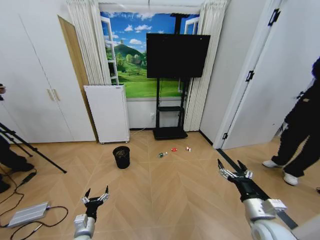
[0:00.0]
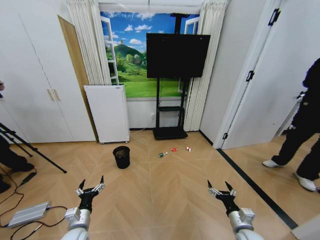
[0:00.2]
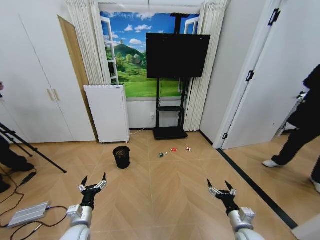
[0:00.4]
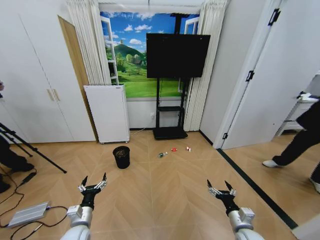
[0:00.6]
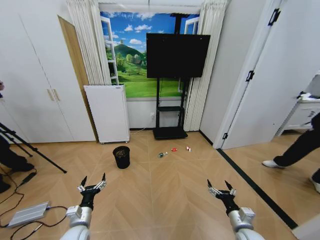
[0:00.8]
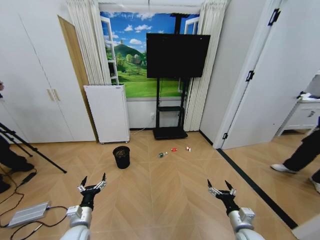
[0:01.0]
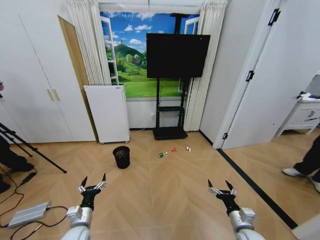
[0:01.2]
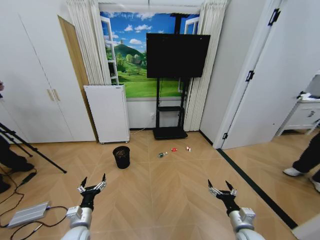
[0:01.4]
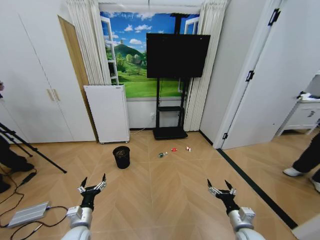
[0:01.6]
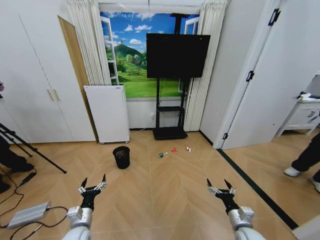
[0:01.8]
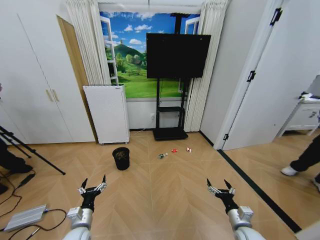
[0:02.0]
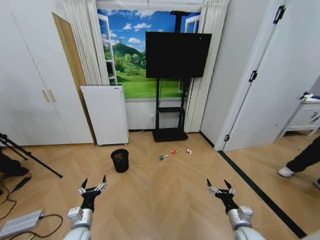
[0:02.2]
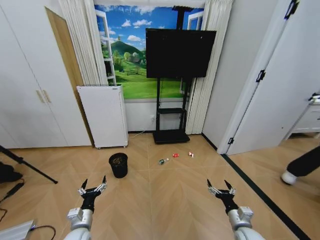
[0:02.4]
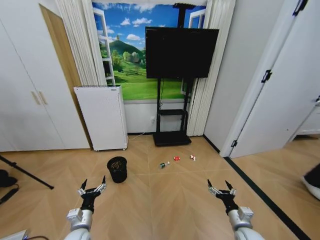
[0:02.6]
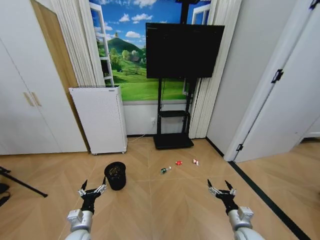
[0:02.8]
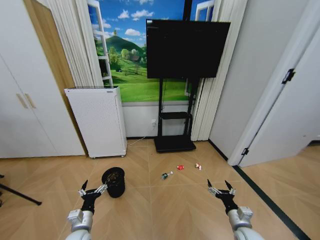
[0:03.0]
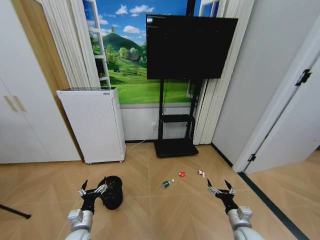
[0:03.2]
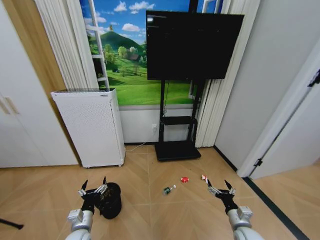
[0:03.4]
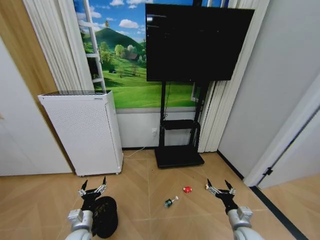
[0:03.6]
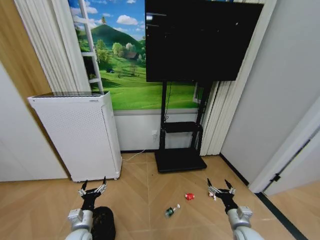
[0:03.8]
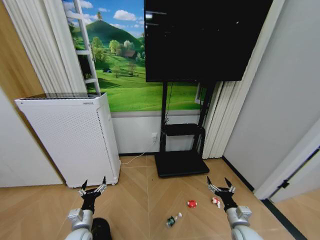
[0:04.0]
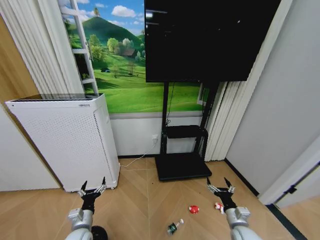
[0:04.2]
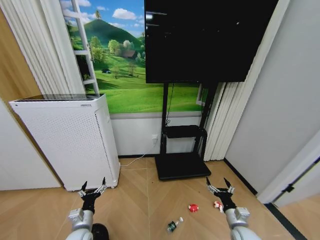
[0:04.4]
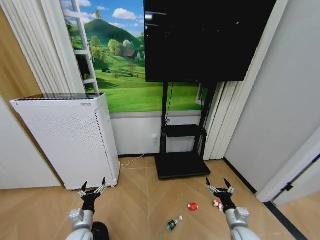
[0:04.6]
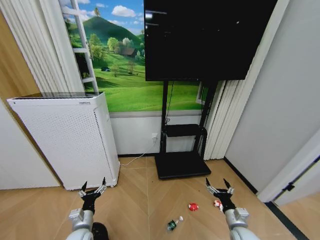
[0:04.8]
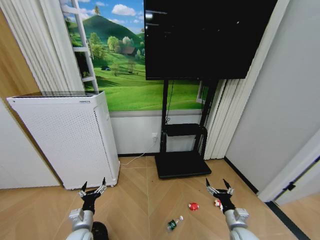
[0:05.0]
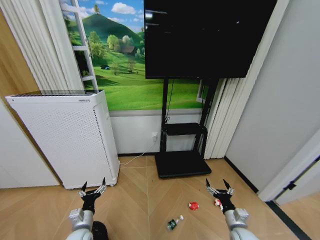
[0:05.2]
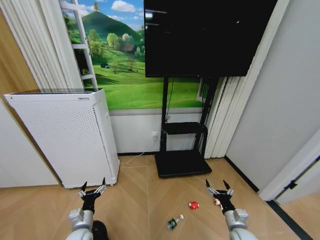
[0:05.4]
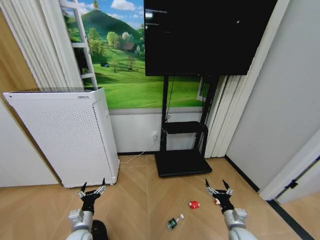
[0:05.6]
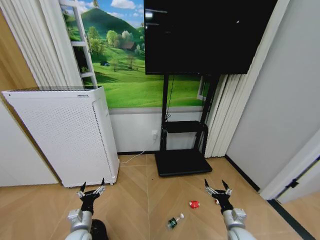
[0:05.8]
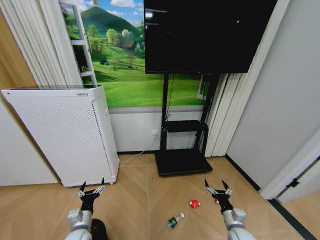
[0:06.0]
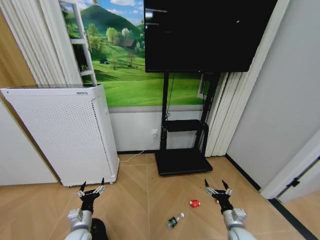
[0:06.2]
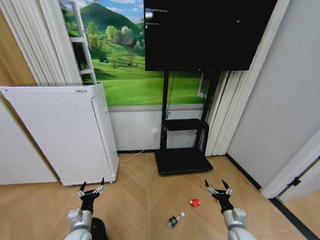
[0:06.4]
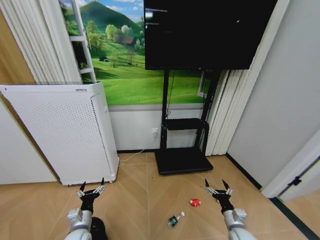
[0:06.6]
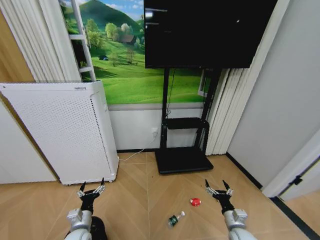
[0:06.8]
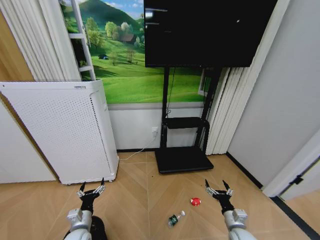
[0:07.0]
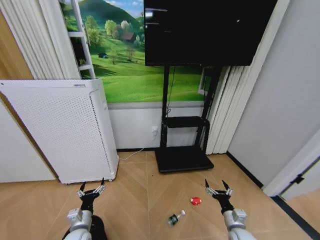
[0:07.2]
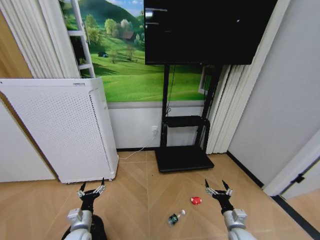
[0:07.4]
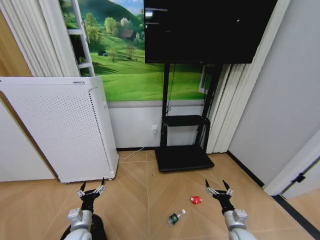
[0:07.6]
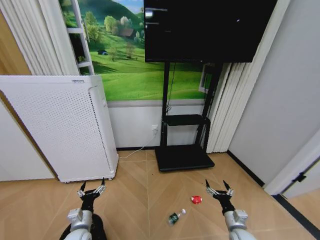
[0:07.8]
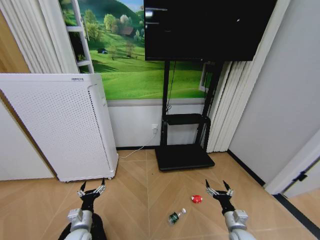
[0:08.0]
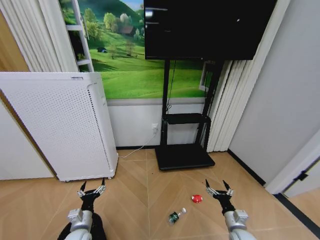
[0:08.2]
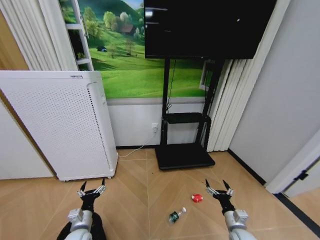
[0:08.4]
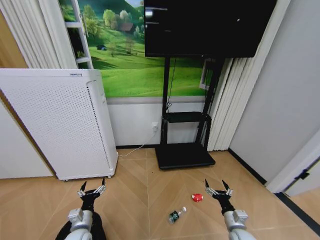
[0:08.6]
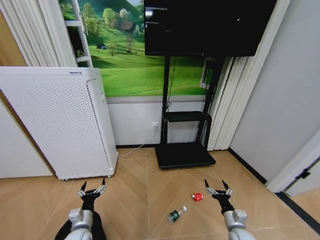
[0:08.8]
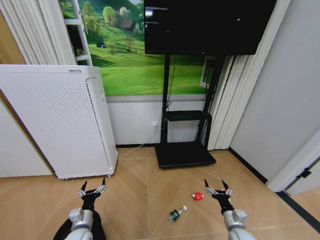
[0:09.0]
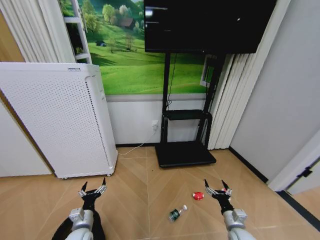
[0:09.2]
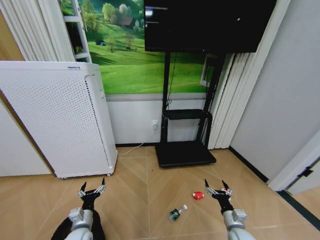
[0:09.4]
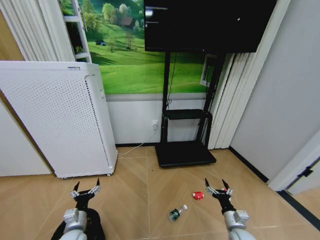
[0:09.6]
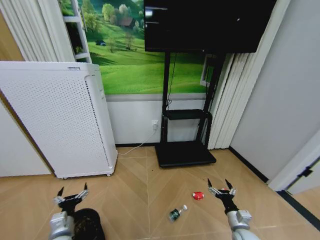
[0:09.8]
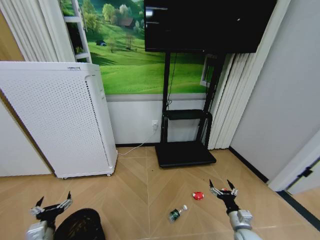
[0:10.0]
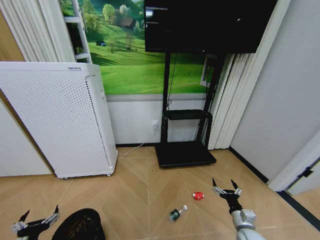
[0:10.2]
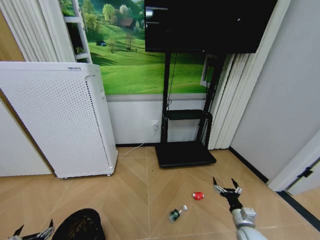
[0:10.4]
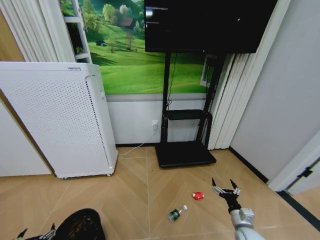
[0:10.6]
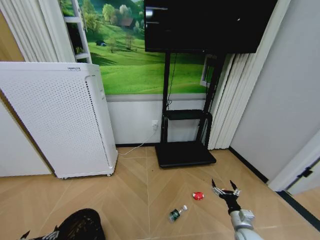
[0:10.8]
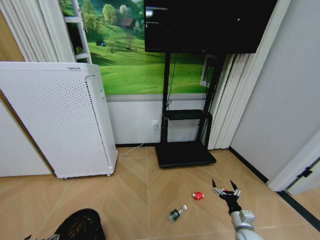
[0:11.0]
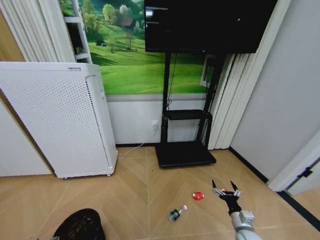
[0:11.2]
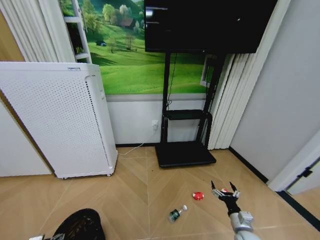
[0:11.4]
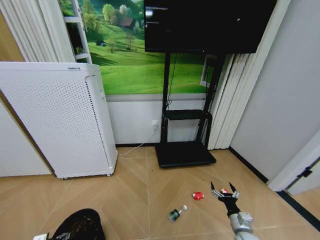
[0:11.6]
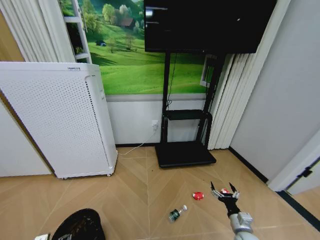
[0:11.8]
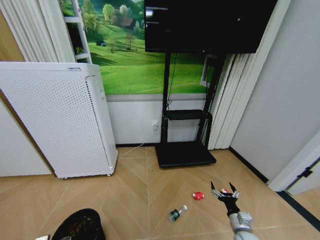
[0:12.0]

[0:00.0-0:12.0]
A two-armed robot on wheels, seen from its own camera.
Task of the whole recording: Pick up the trash bin and place the garbage on the floor into it.
0:04.4 to 0:06.0: The grippers stay close to where they were, moving slightly.
0:06.0 to 0:09.0: The two grippers keep their place.
0:09.0 to 0:10.4: The left gripper moves backward and to the left, some 15 cm.

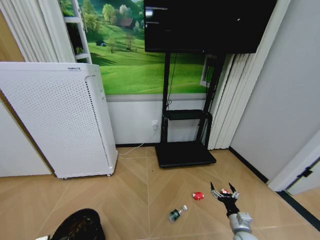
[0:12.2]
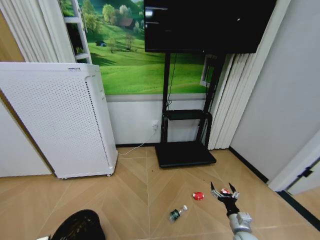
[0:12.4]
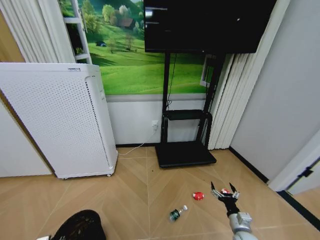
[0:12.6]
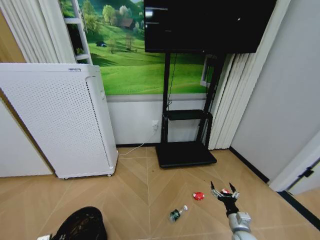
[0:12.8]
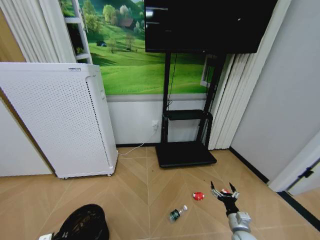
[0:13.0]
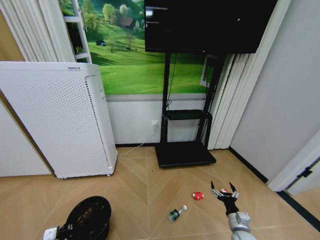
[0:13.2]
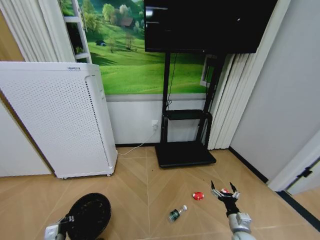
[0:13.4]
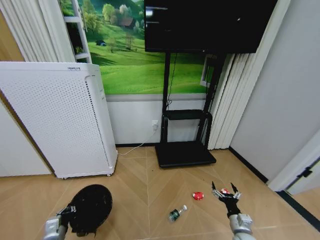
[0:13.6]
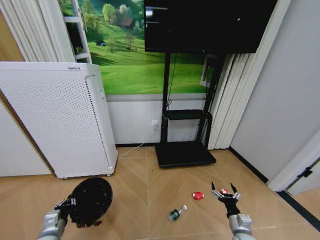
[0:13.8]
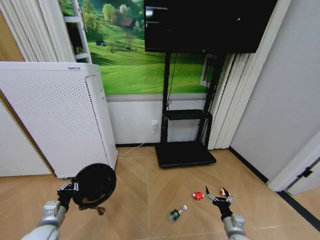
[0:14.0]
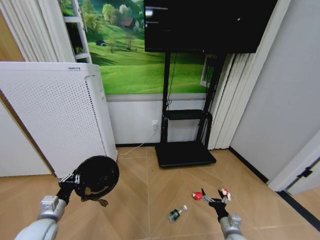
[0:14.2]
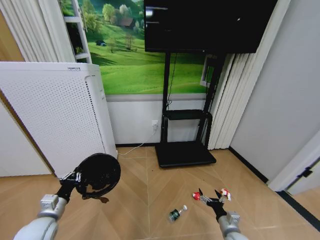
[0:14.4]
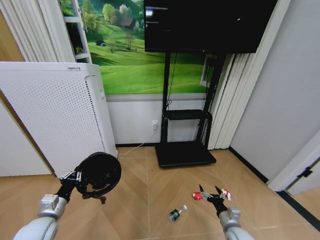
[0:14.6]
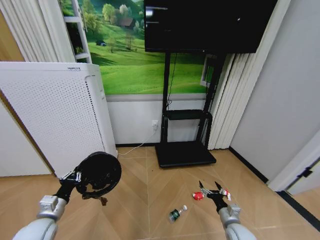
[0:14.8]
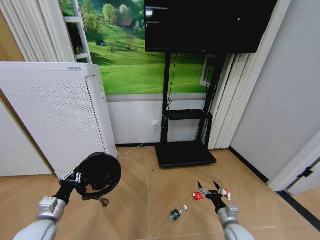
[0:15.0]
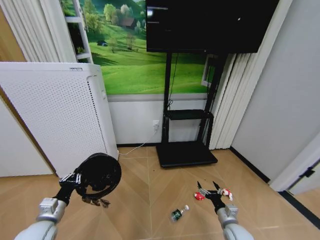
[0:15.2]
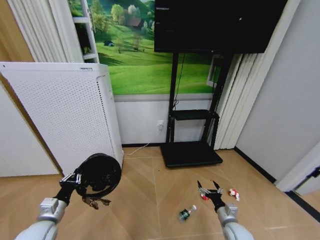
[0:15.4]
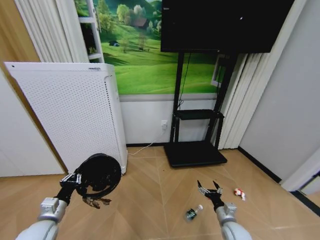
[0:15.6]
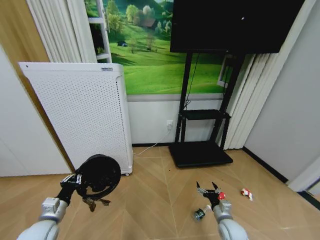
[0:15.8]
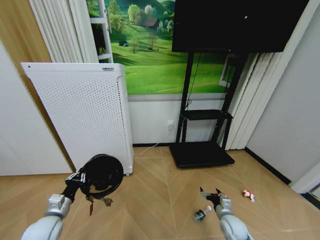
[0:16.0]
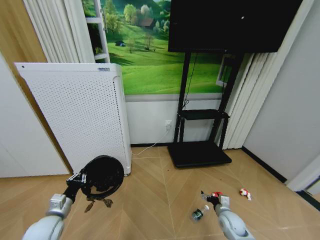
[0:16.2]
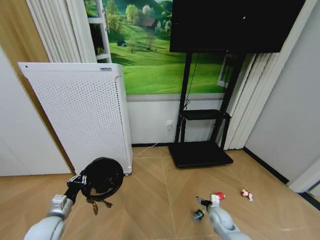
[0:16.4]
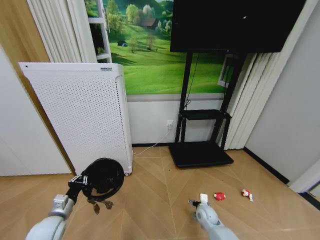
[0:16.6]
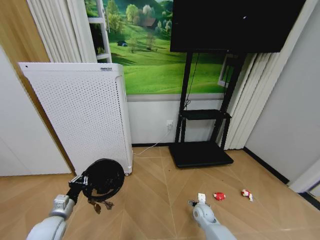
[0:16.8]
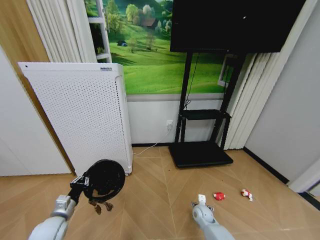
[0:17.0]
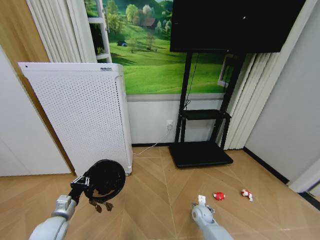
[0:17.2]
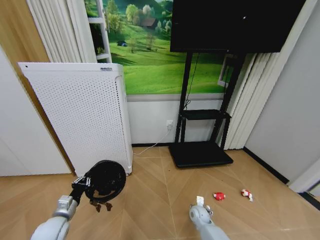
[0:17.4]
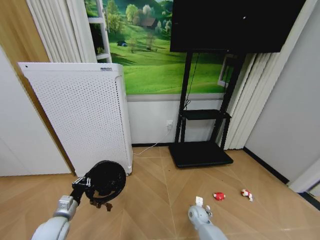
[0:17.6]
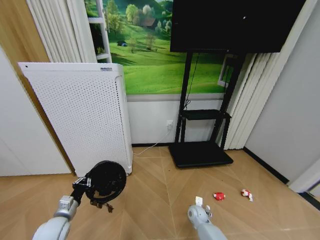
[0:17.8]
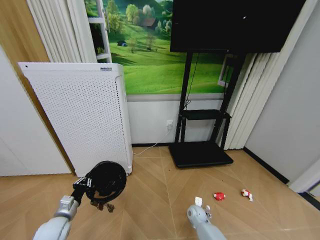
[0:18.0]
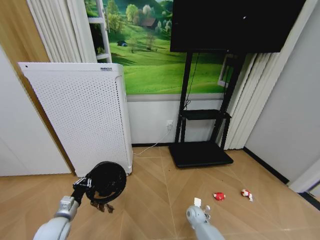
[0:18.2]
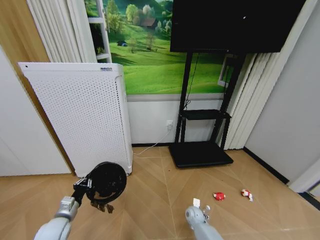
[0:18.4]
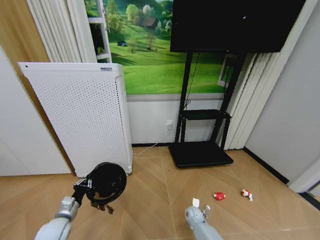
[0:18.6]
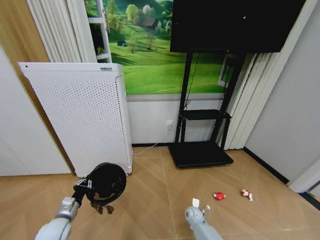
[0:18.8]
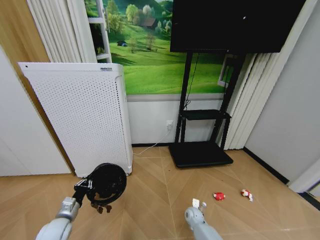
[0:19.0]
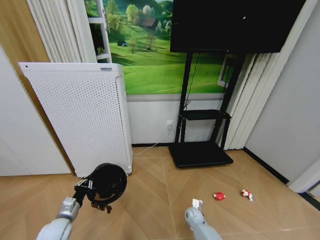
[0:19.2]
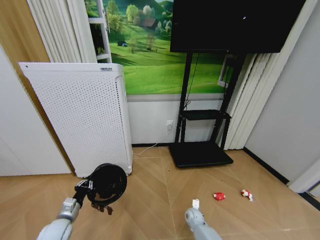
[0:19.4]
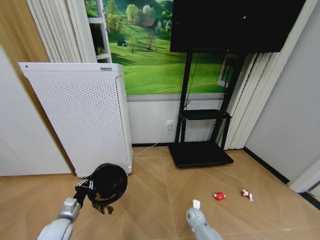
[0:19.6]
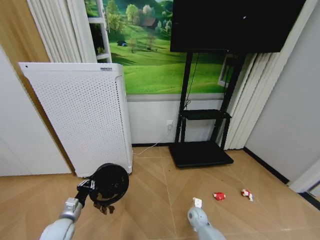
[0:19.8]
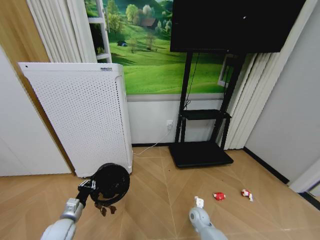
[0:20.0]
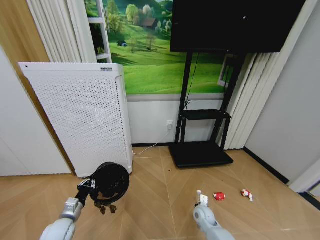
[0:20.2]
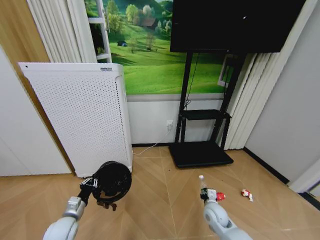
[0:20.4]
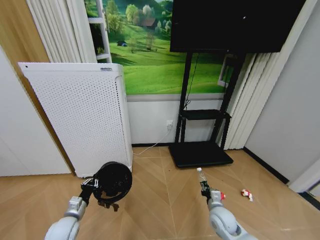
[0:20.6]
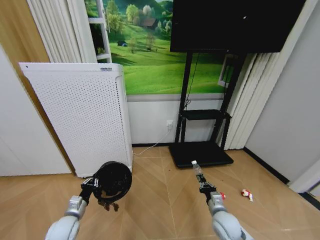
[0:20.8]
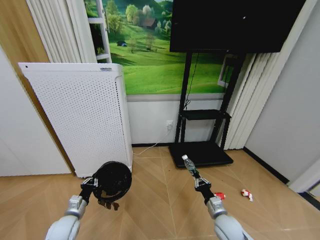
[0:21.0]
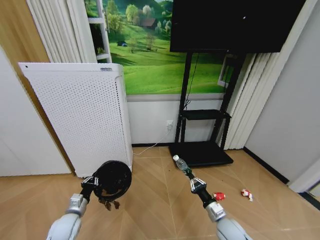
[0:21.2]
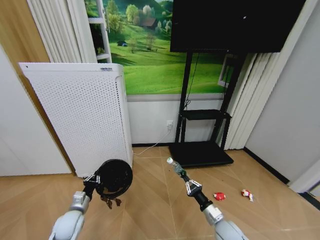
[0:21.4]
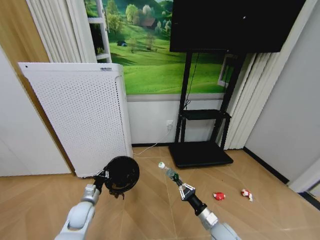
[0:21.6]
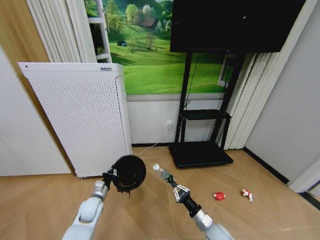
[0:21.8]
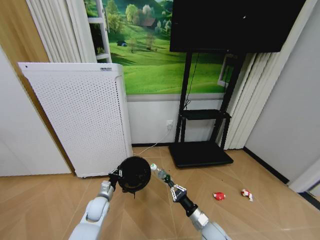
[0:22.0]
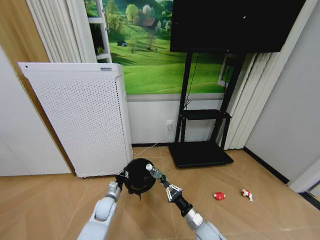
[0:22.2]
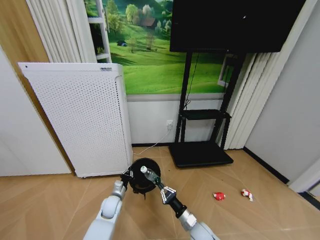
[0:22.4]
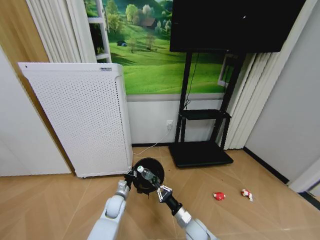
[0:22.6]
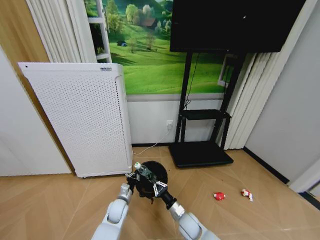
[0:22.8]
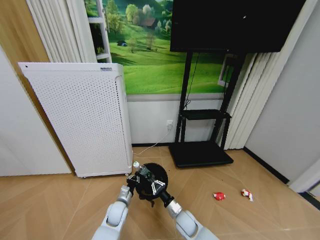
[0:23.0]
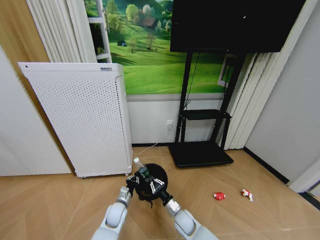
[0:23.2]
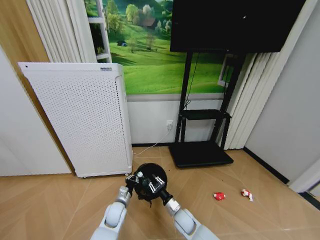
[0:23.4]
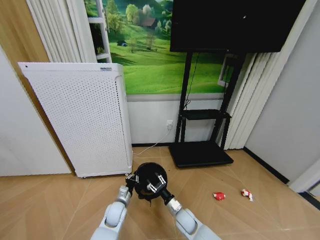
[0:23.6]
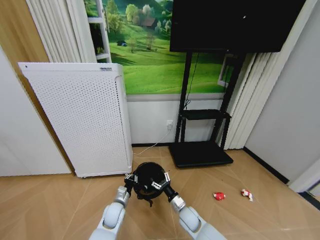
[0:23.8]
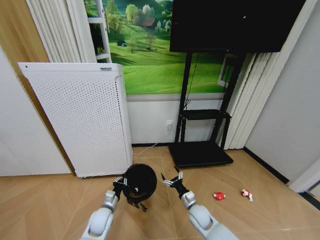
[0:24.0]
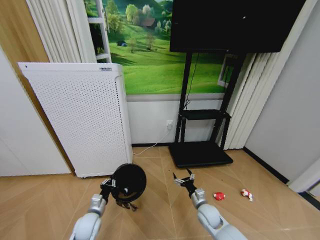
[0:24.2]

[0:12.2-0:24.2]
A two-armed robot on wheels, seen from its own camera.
Task of the whole recording: Pick up the trash bin and place the garbage on the floor into it.
0:12.2 to 0:13.8: The left gripper heads upward, covering roughly 5 cm, and closes its fingers.
0:13.8 to 0:15.2: The left gripper heads upward, covering approximately 5 cm.
0:15.2 to 0:16.6: The right gripper goes roughly 15 cm forward, to the left and downward.
0:16.6 to 0:18.2: The right gripper goes roughly 5 cm downward.
0:19.8 to 0:21.2: The right gripper is displaced upward, backward and to the right by roughly 20 cm.
0:21.2 to 0:22.6: The right gripper goes approximately 15 cm to the left and downward, while the left gripper shifts roughly 20 cm to the right and forward.
0:22.6 to 0:24.2: The left gripper goes some 15 cm to the left and backward, while the right gripper moves to the right, about 10 cm, and opens its fingers.
